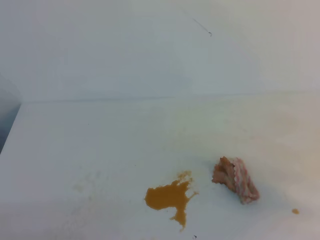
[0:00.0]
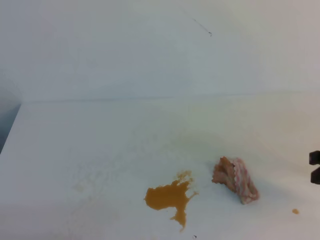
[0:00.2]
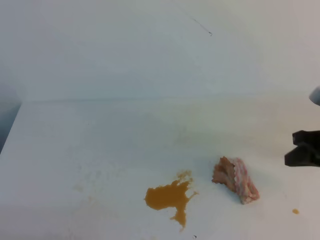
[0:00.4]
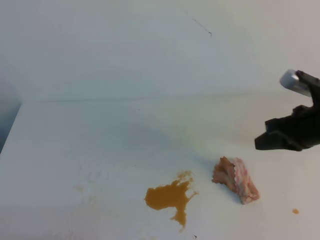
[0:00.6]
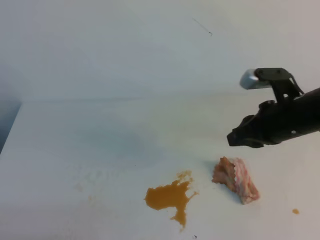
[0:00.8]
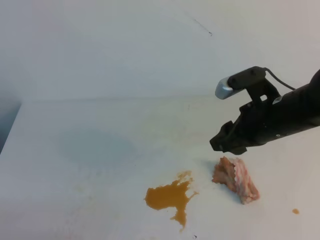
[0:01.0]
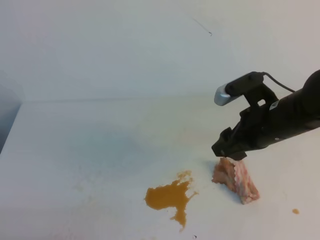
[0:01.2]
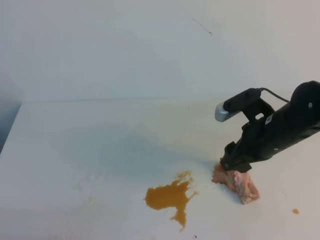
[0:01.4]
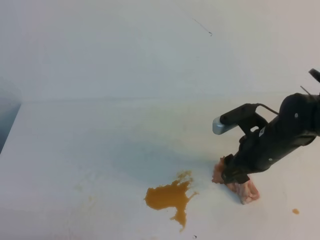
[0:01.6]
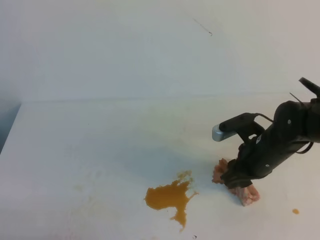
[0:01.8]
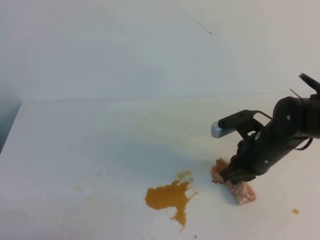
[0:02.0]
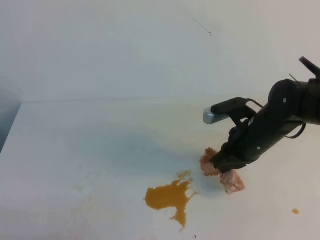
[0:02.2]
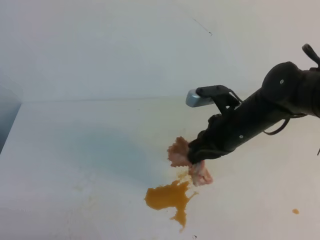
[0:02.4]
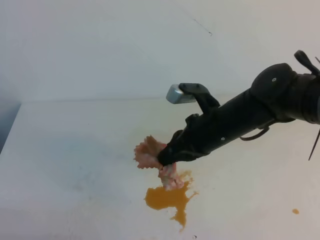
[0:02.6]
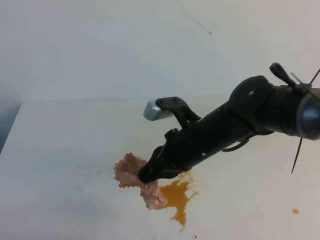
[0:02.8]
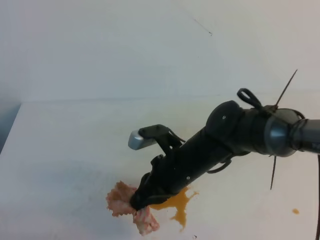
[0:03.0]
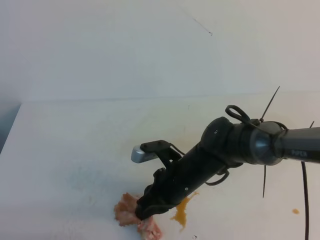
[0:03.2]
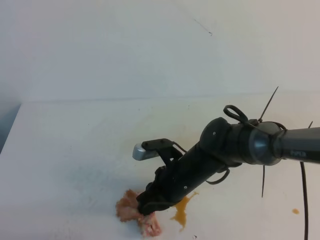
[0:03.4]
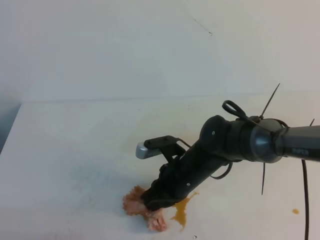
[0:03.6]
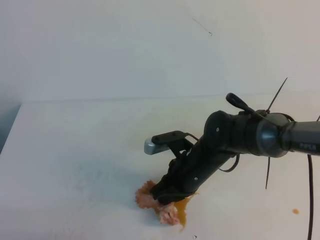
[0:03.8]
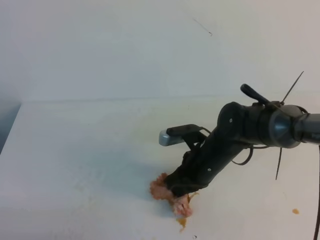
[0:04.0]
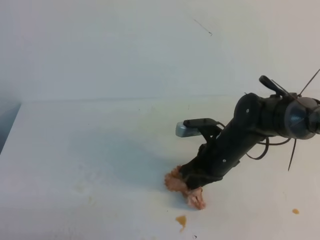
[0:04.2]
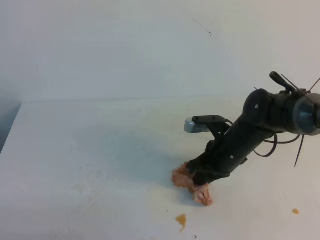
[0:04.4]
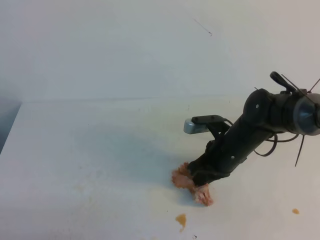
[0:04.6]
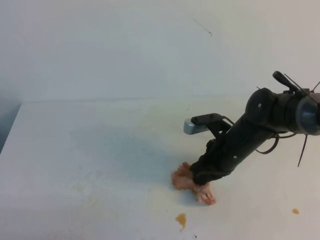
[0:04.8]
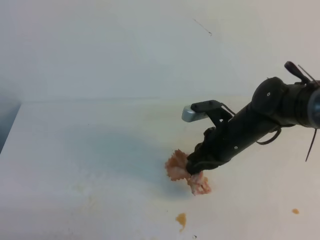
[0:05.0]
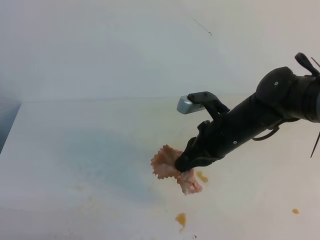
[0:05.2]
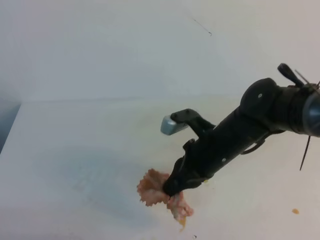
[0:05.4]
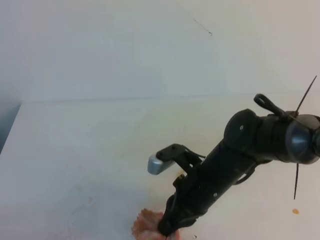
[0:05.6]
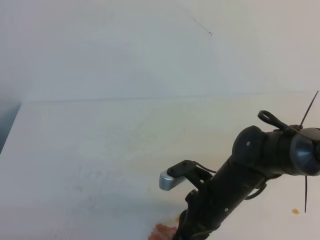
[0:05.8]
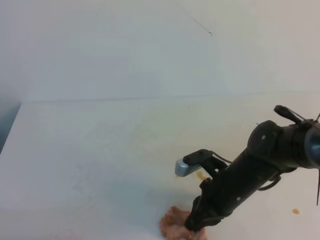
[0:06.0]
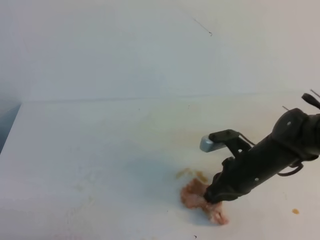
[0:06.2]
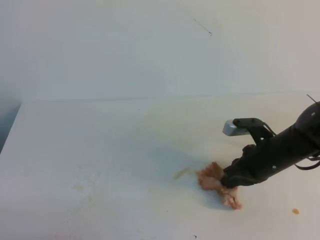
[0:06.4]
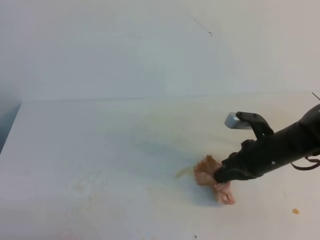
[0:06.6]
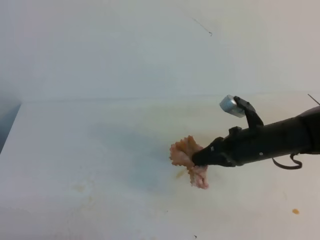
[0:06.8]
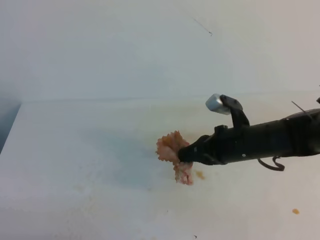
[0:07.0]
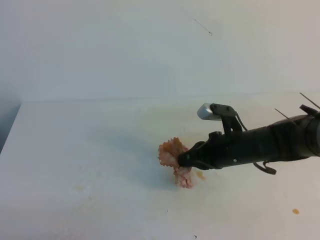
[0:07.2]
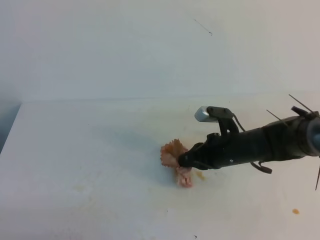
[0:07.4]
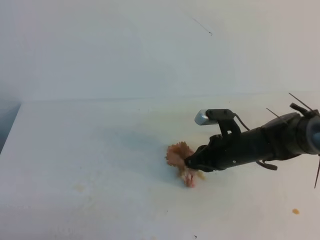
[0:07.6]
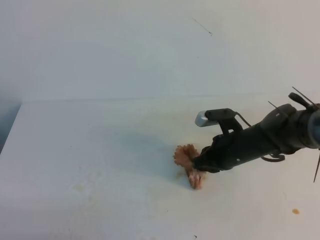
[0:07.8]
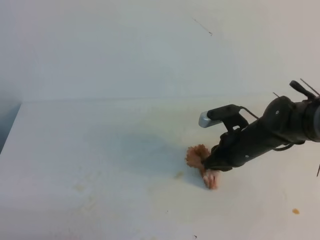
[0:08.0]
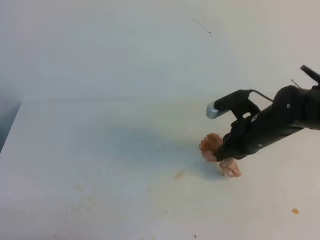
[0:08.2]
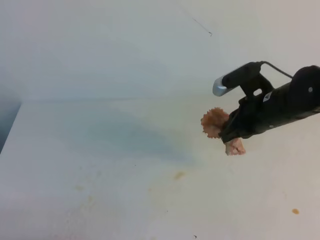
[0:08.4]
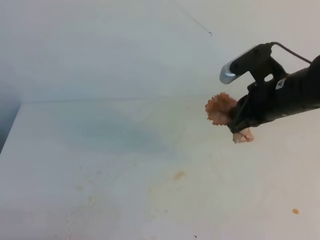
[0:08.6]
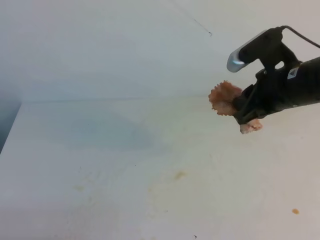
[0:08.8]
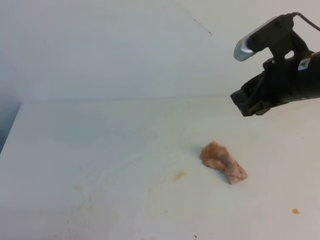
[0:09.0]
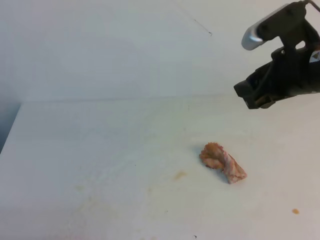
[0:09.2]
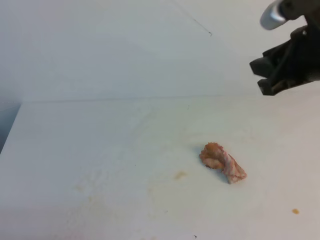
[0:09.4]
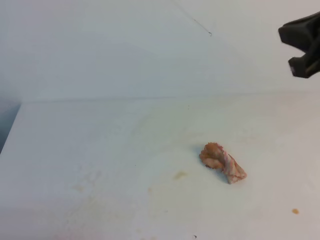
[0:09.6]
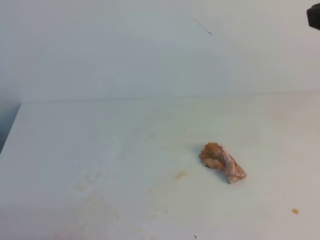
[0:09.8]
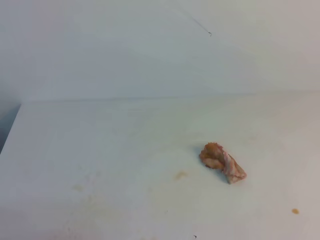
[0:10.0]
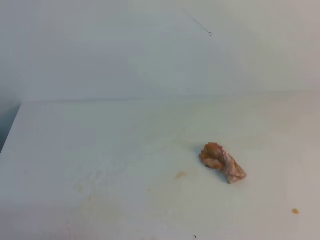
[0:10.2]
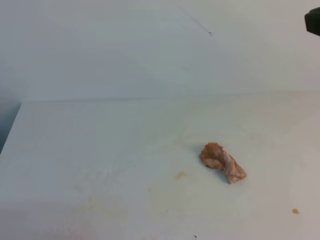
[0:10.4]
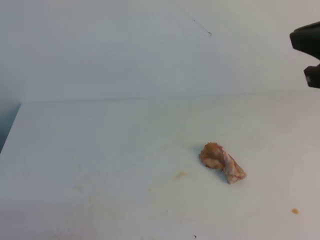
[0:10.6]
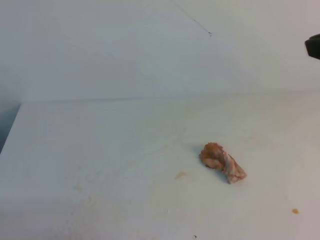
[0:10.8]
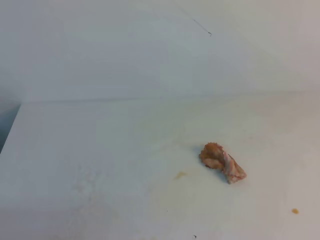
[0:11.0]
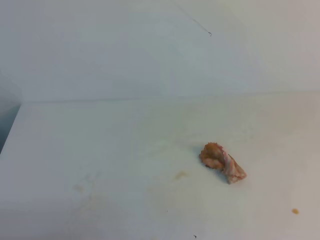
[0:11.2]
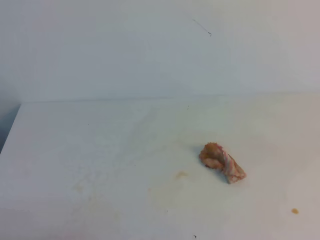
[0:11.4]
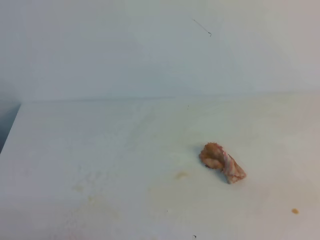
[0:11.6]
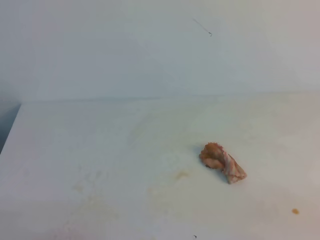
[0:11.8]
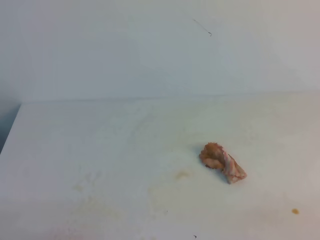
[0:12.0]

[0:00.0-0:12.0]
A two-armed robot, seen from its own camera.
0:00.0 to 0:01.6: The right gripper moves to the left and forward, some 20 cm, and opens up.
0:01.6 to 0:03.0: The right gripper shifts roughly 15 cm to the left, and closes up.
0:03.0 to 0:04.4: The right gripper travels to the right and forward by roughly 10 cm.
0:04.4 to 0:06.0: The right gripper moves backward, approximately 5 cm.
0:06.0 to 0:07.6: The right gripper moves forward, some 10 cm.
0:07.6 to 0:09.0: The right gripper heads upward, covering roughly 20 cm, and opens up.
0:09.0 to 0:10.4: The right gripper shifts about 15 cm upward and backward, and closes.

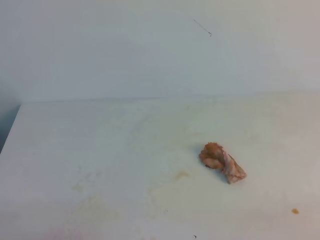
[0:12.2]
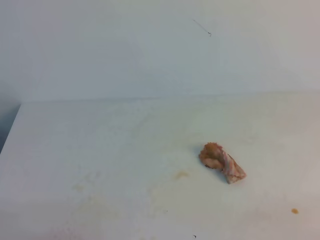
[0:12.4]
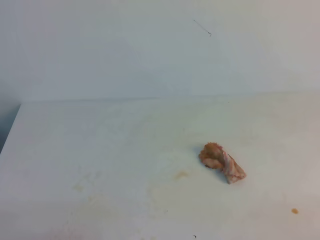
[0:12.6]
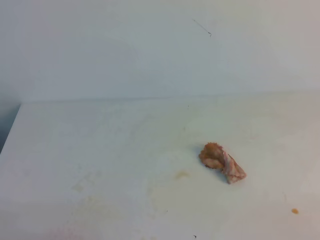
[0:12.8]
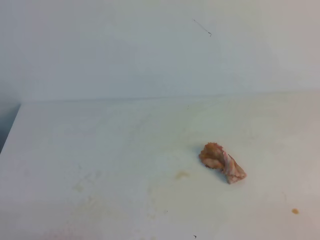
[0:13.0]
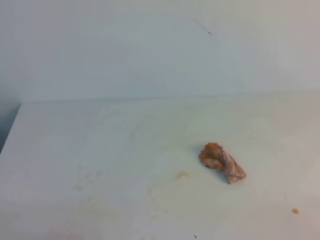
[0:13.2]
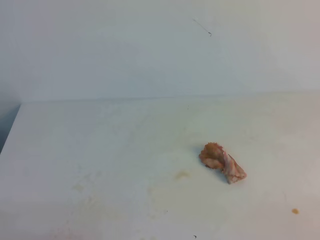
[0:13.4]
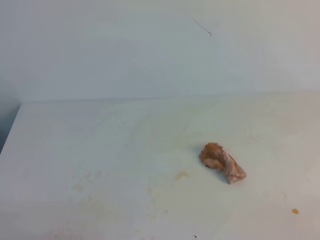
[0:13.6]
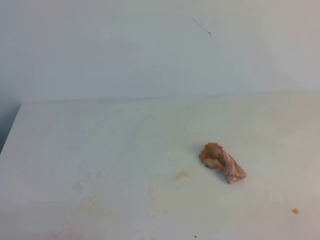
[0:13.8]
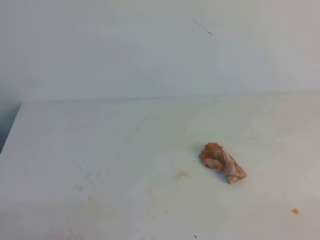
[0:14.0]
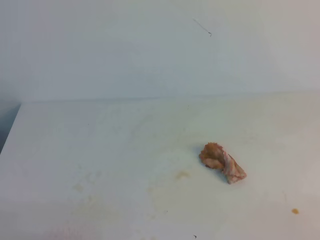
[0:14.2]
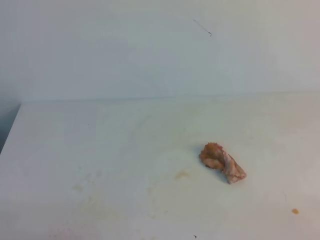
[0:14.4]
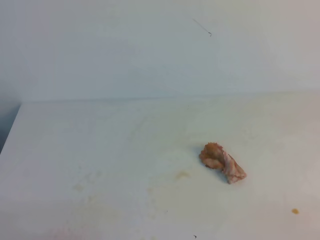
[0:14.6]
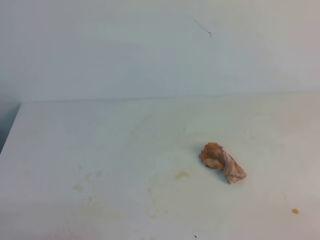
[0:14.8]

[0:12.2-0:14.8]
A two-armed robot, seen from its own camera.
0:13.4 to 0:14.8: Both grippers stay put.

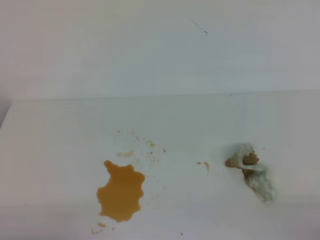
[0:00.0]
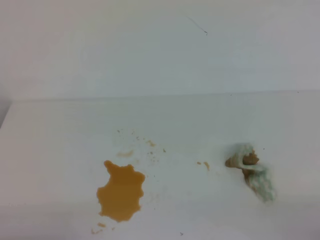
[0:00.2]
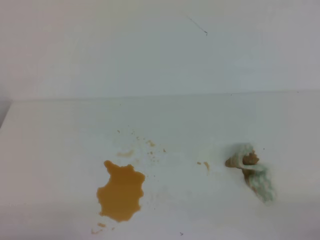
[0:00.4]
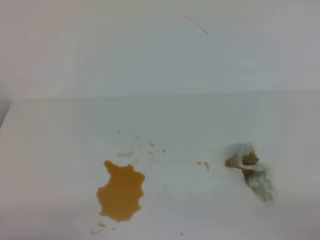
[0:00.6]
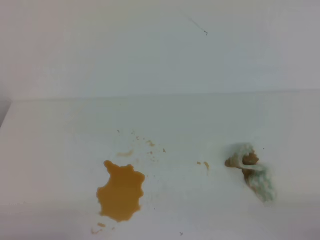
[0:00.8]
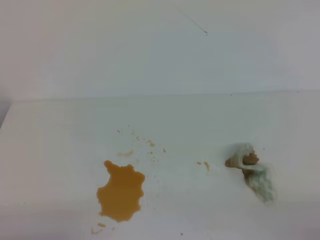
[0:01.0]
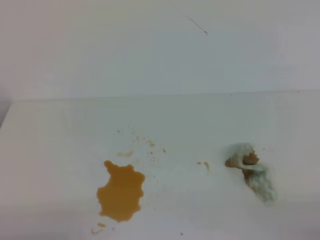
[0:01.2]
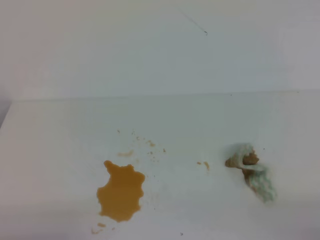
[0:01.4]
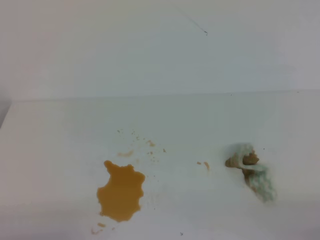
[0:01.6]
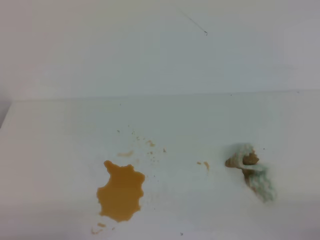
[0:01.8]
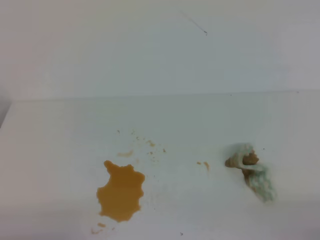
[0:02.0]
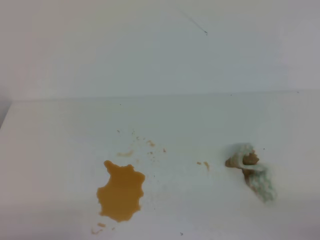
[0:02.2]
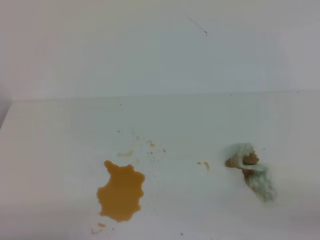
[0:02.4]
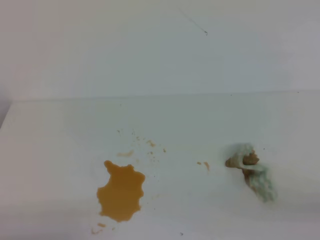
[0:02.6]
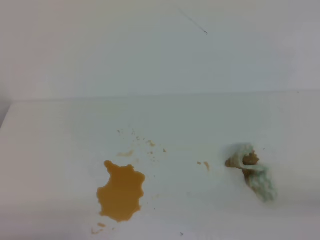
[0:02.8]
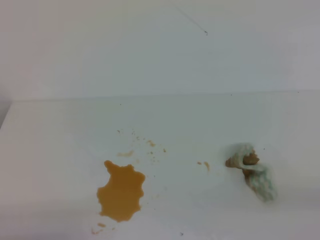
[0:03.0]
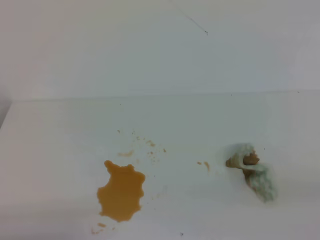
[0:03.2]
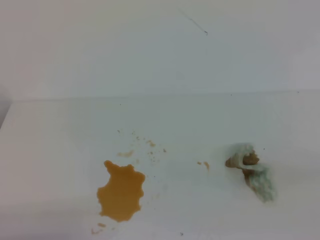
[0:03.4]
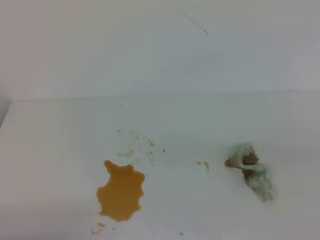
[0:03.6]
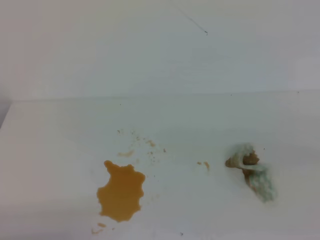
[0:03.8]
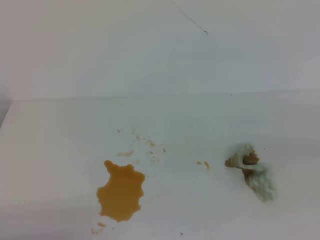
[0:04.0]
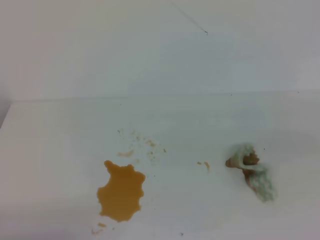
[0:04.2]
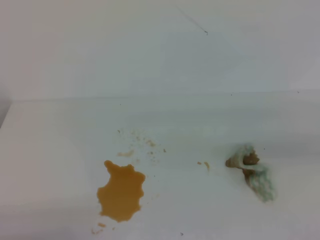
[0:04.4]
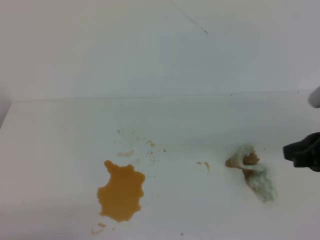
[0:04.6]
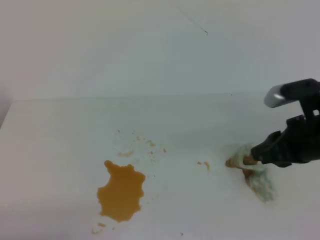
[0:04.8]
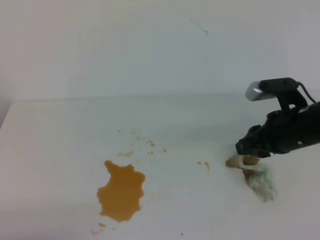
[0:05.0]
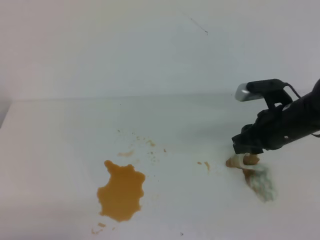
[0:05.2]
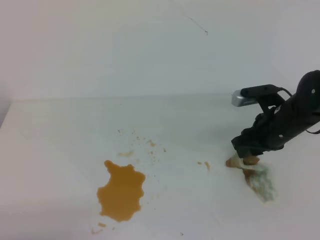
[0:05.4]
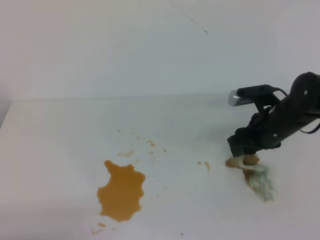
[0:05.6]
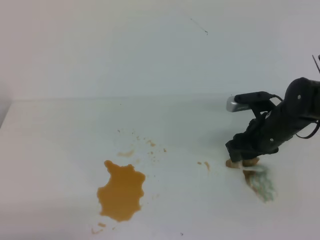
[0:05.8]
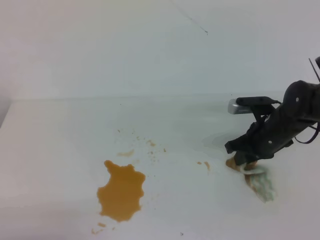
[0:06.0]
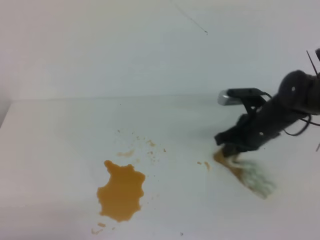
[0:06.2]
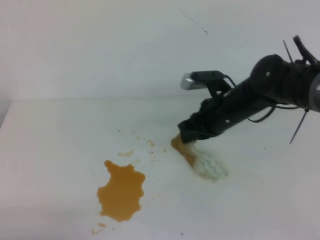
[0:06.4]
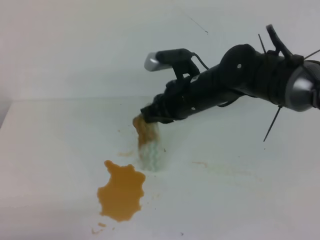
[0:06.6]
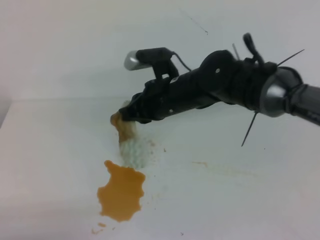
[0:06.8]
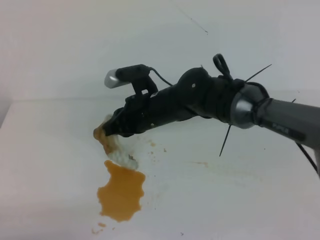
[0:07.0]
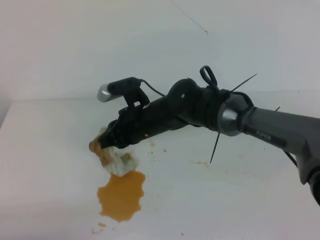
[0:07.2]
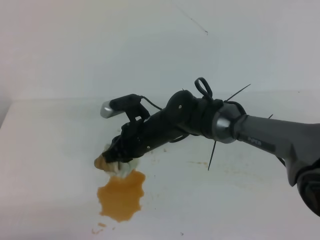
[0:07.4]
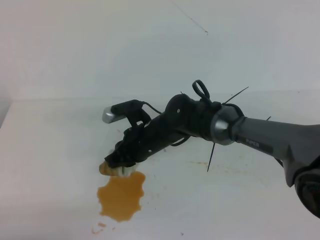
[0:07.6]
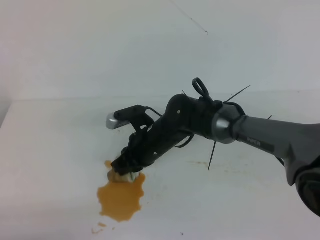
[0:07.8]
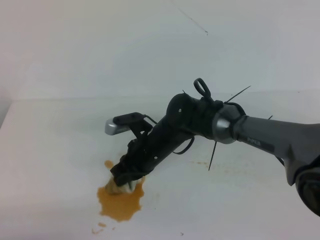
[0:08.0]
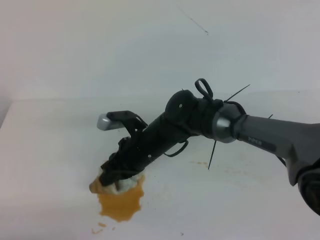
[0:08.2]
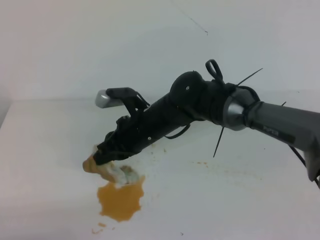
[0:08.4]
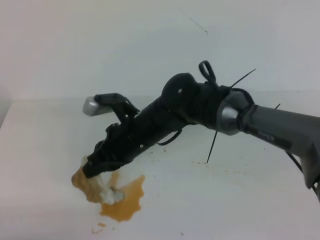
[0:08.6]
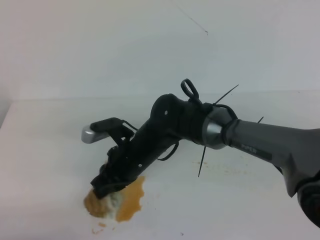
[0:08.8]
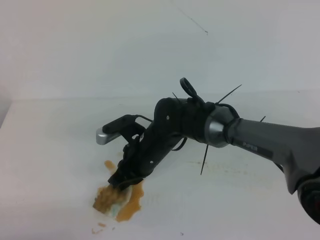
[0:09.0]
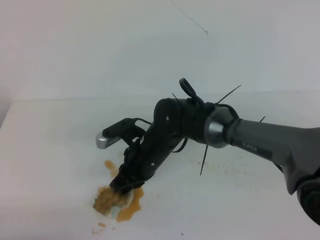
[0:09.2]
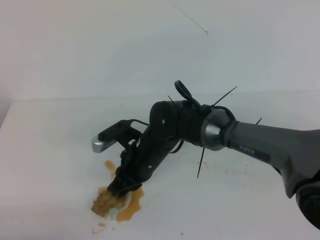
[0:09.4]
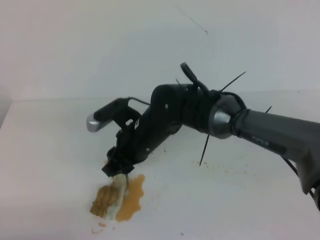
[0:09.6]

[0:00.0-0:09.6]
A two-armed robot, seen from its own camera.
0:00.0 to 0:01.6: The two grippers keep their place.
0:03.2 to 0:04.8: The right gripper heads forward and to the left, covering roughly 25 cm, and opens up.
0:04.8 to 0:06.4: The right gripper shifts approximately 15 cm to the left and forward, and closes up.
0:06.4 to 0:08.0: The right gripper goes roughly 15 cm to the left and downward.
0:08.0 to 0:09.6: The right gripper swings up and down, about 5 cm each way, with 2 reversals, and opens its fingers.
